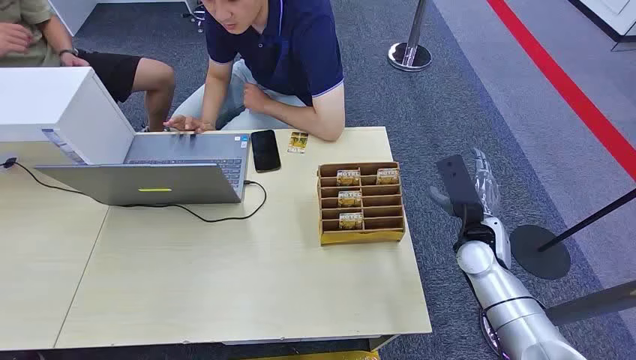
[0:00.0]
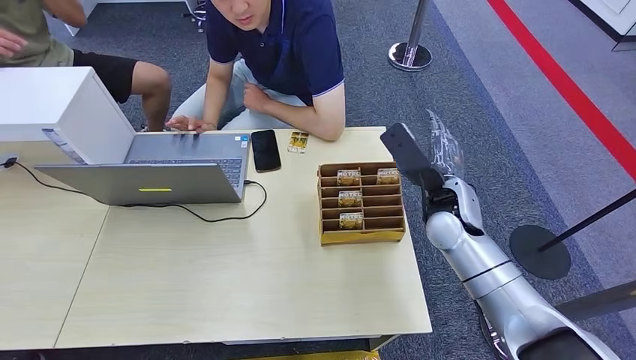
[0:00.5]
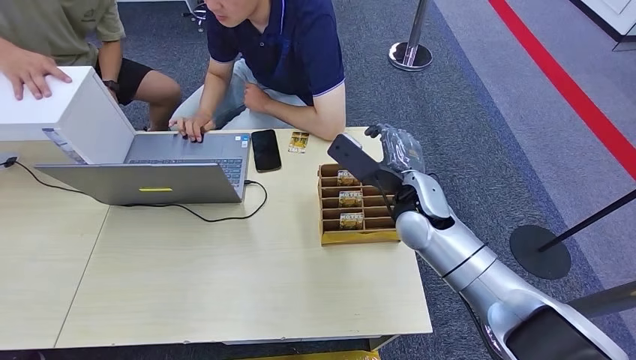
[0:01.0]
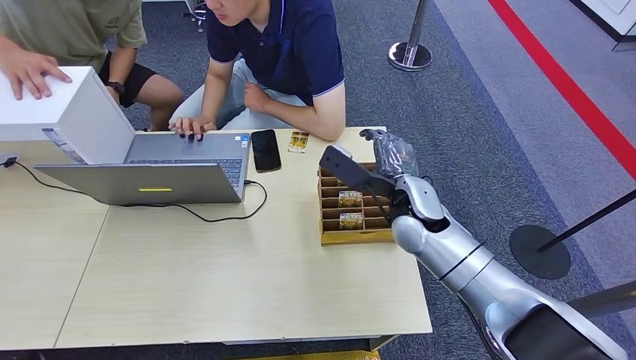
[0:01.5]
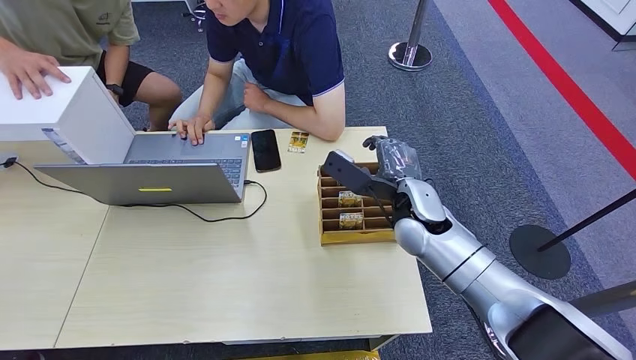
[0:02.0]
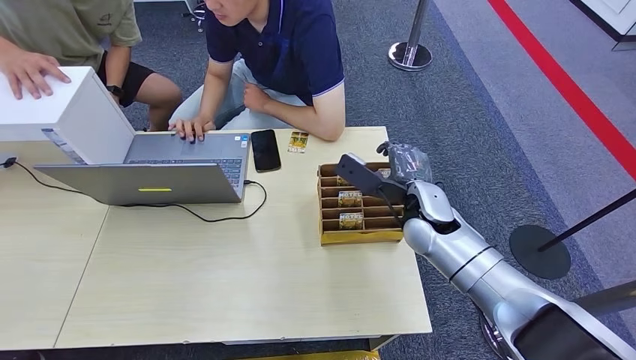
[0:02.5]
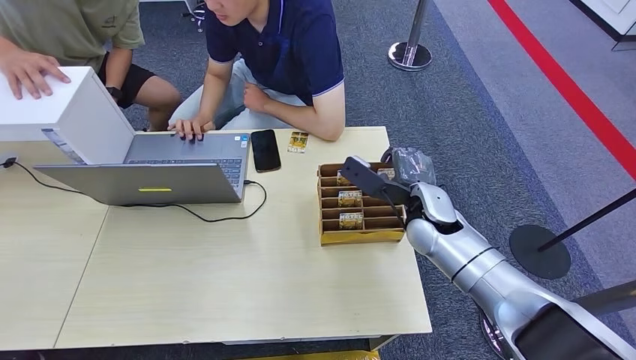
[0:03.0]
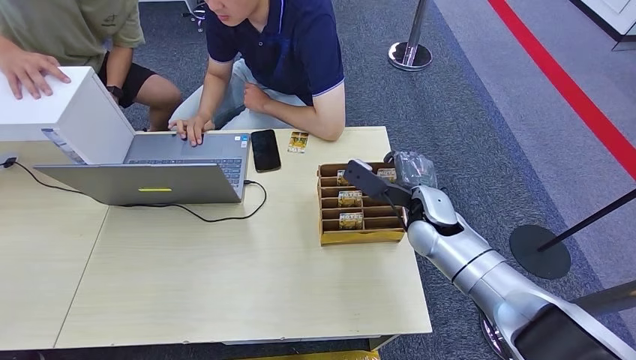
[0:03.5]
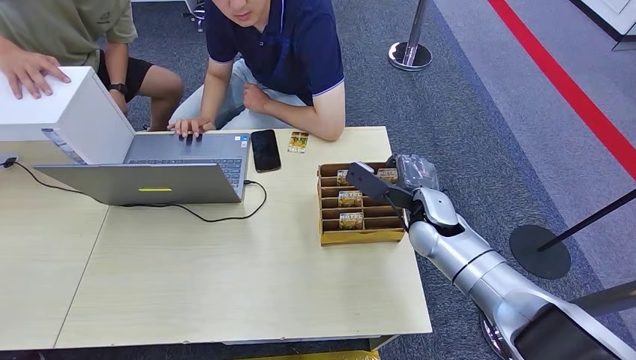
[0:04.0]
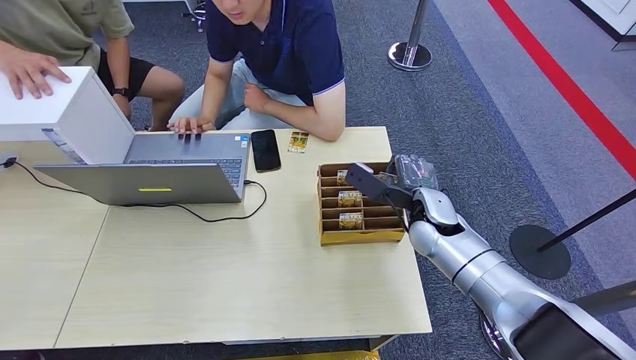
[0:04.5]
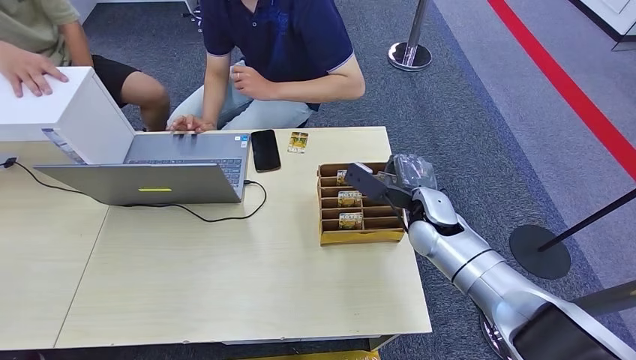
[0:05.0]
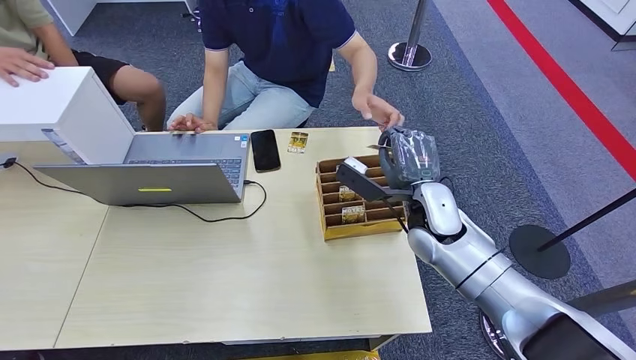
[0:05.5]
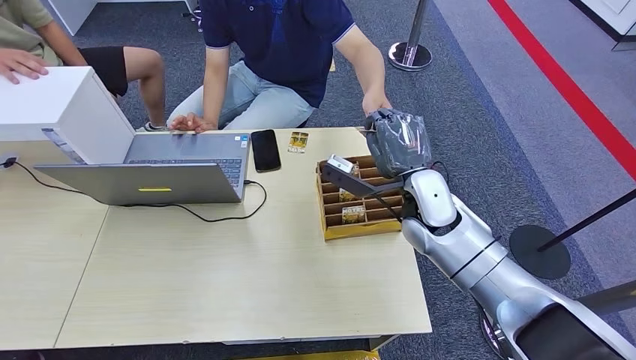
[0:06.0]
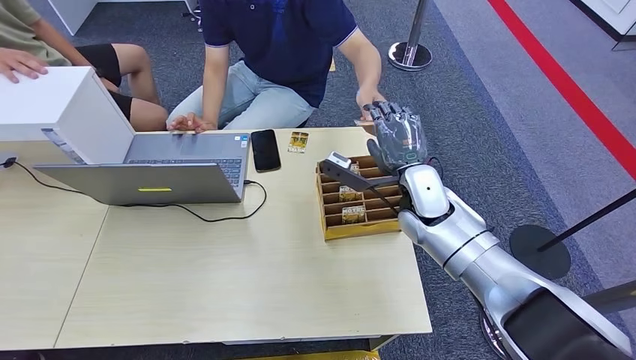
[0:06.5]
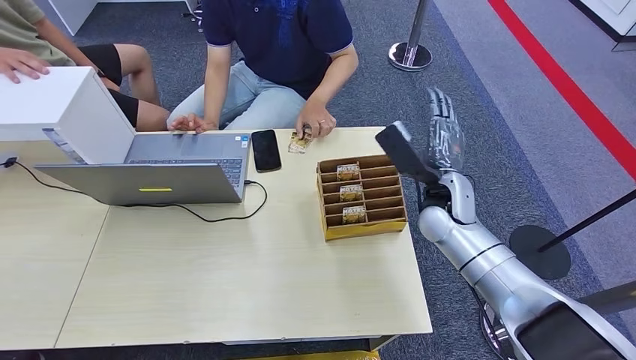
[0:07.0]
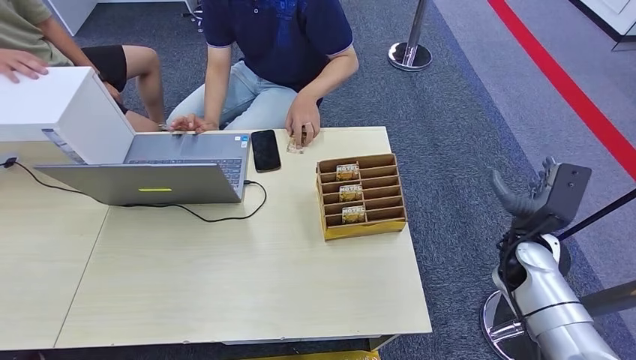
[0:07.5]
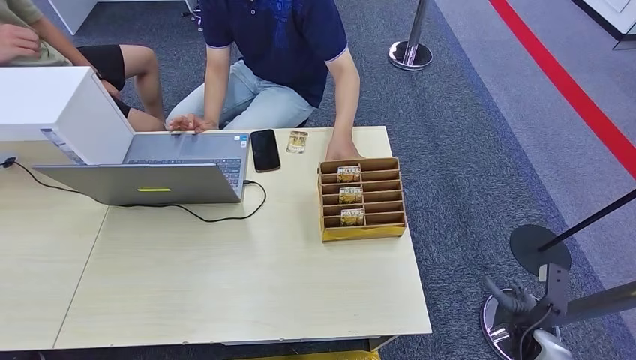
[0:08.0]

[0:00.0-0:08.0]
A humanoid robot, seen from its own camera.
Step, 0:00.0 to 0:05.0: Pick up the key card from the card box.
Step, 0:05.5 to 0:08.0: Hand the key card to the target.
0:02.0 to 0:04.0: The right hand changes place by about 5 cm.
0:04.0 to 0:06.0: The right hand goes approximately 5 cm upward.
0:06.0 to 0:08.0: The right hand heads to the right, downward and backward, covering about 40 cm.

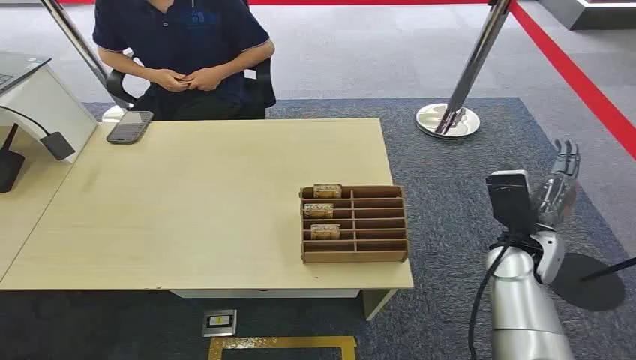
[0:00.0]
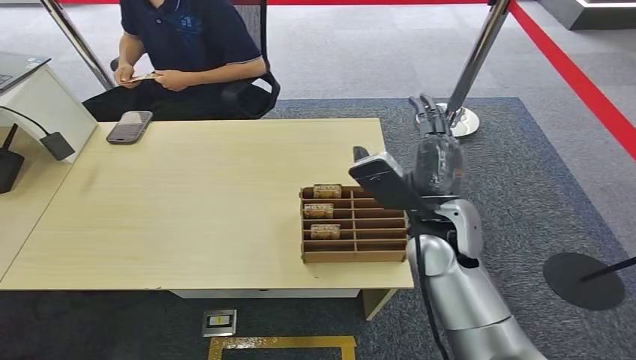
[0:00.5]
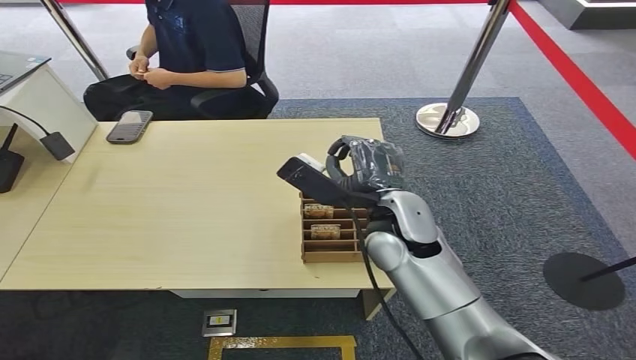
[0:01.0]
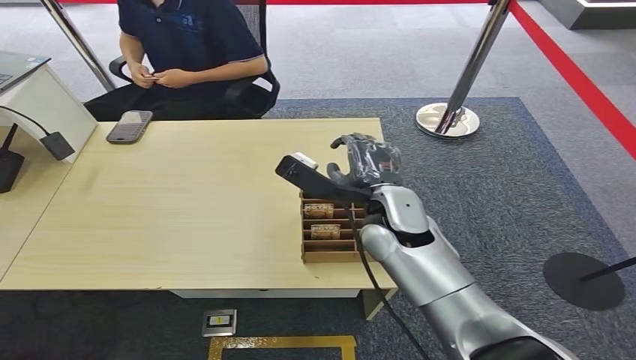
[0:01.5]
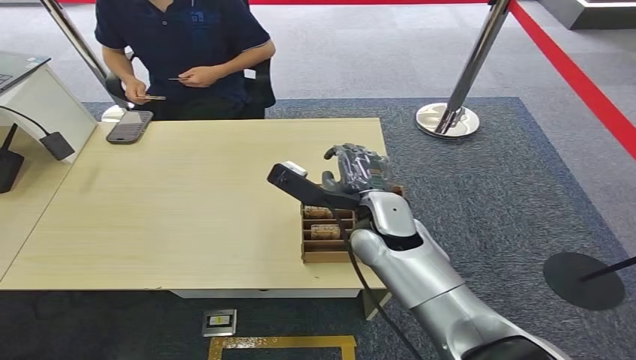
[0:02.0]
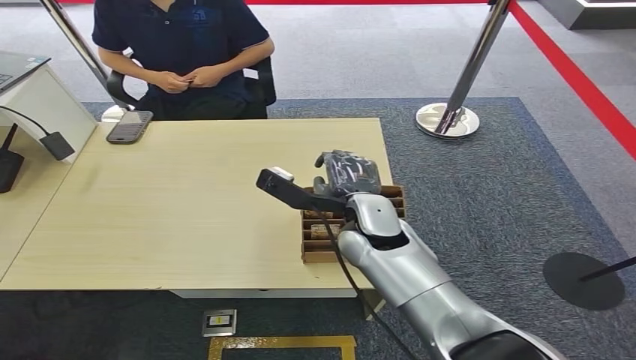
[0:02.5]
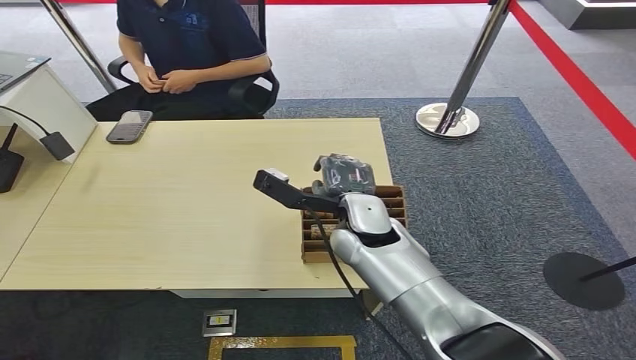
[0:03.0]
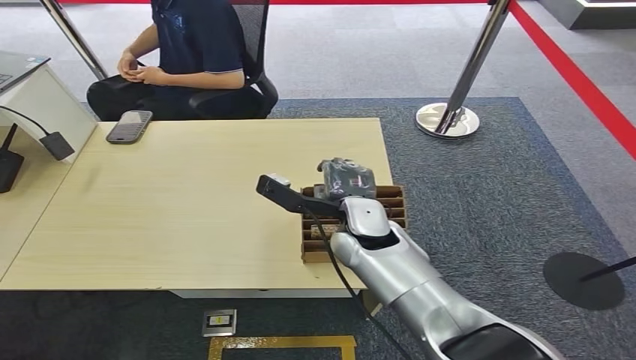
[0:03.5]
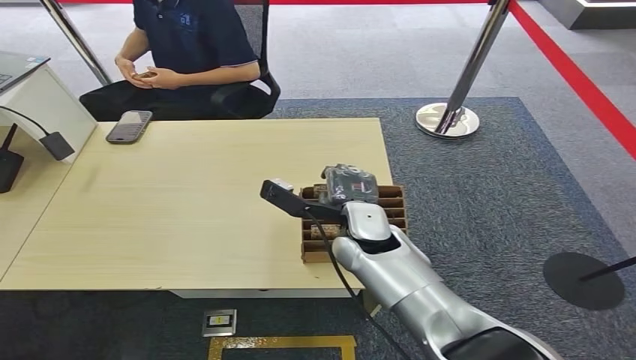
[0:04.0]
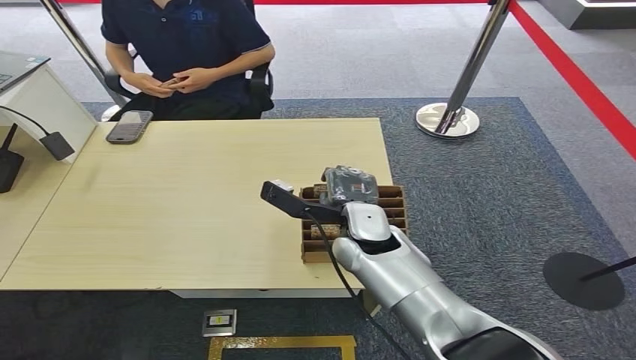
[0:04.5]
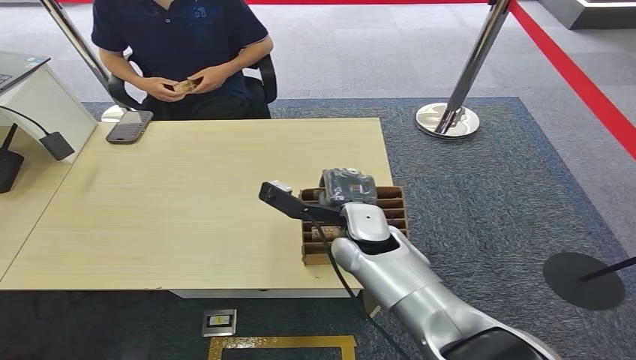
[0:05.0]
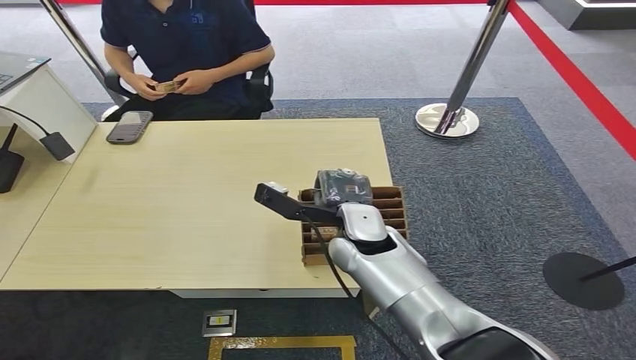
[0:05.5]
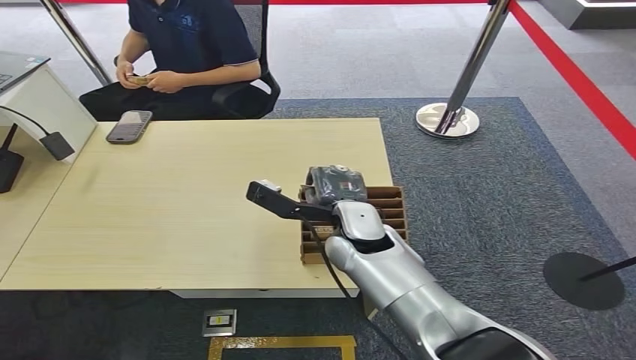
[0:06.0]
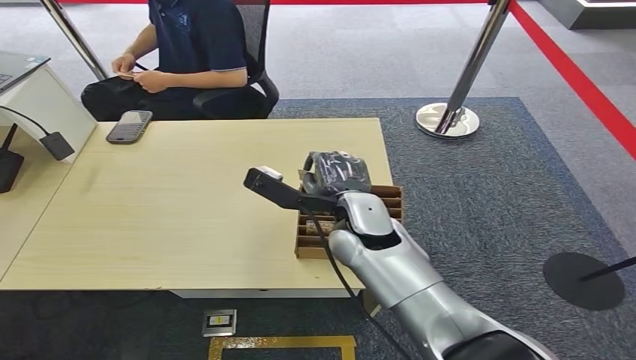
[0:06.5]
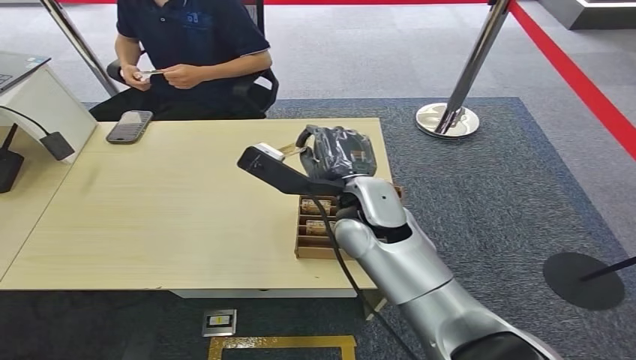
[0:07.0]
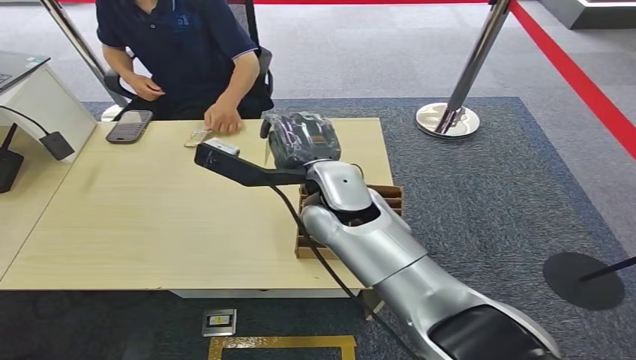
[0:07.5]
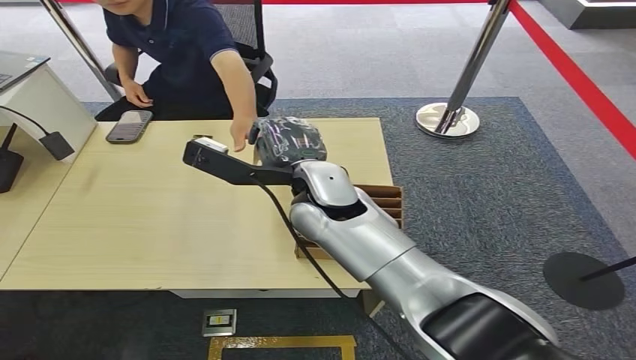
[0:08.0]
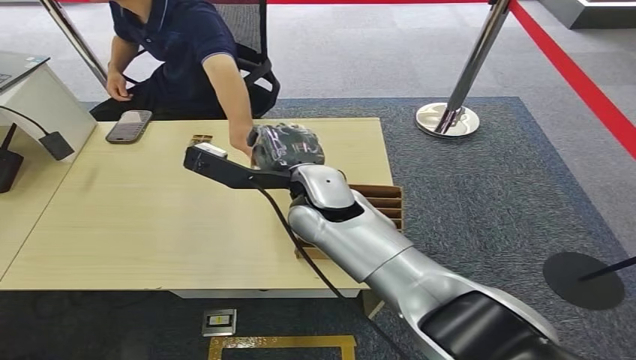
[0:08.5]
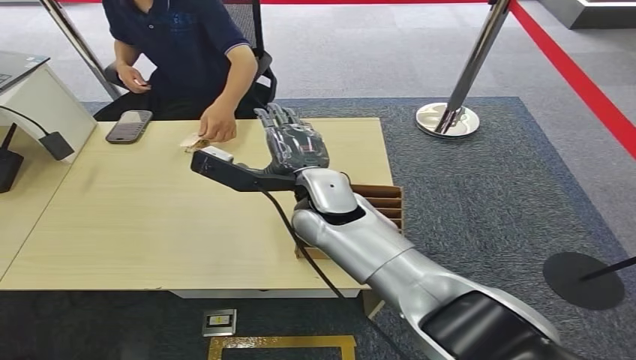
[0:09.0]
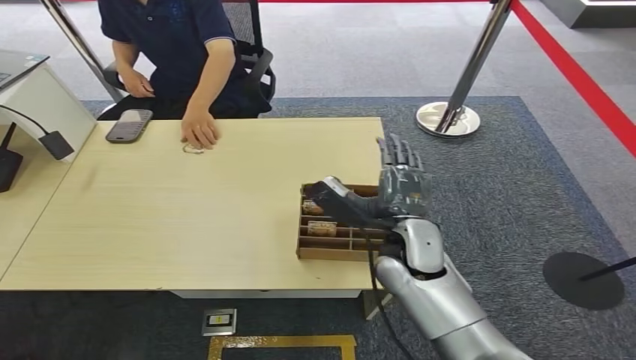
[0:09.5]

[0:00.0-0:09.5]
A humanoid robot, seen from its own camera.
Step, 0:00.0 to 0:06.0: Pick up the key card from the card box.
Step, 0:06.5 to 0:09.5: Hand the key card to the target.
0:02.0 to 0:04.0: There are only small adjustments of the hands.
0:04.0 to 0:05.5: The two hands keep their place.
0:05.5 to 0:07.5: The right hand heads upward, covering approximately 10 cm.
0:07.5 to 0:09.5: The right hand travels downward, to the right and backward by approximately 15 cm.

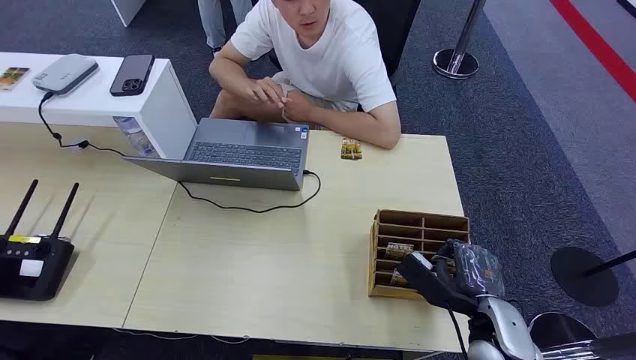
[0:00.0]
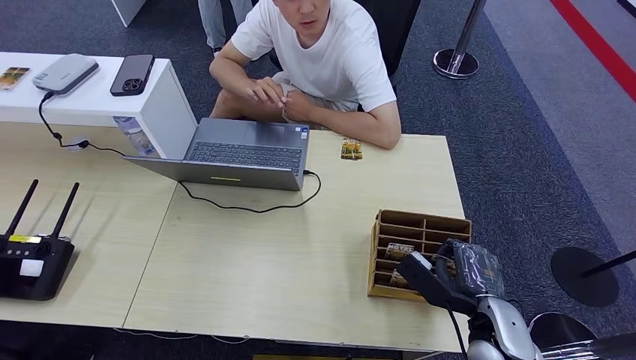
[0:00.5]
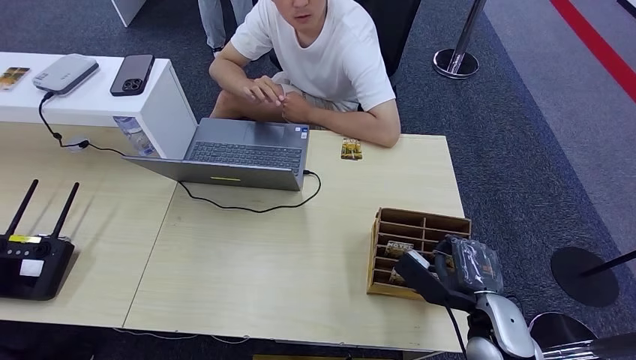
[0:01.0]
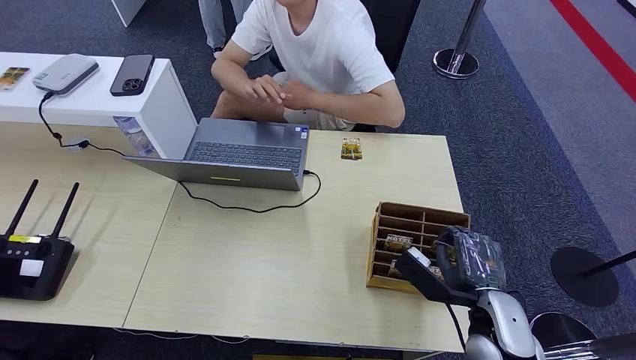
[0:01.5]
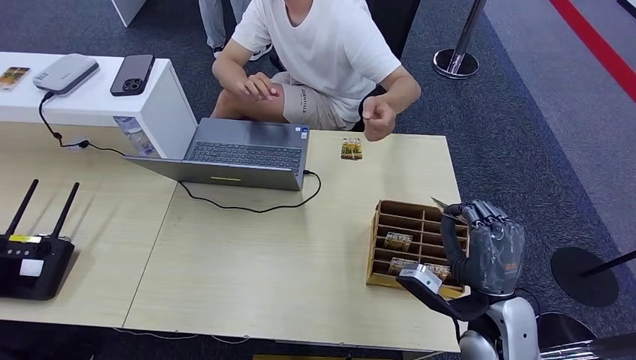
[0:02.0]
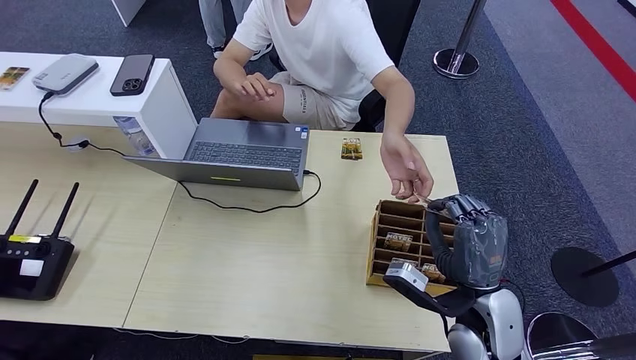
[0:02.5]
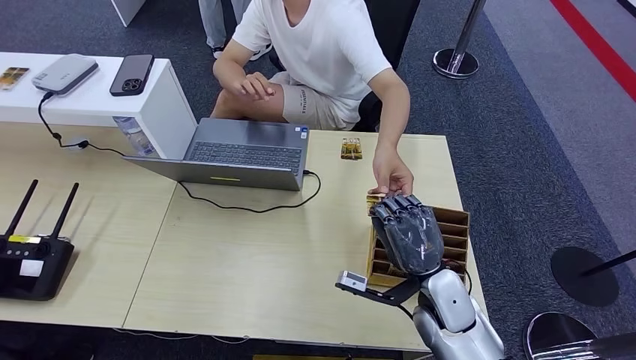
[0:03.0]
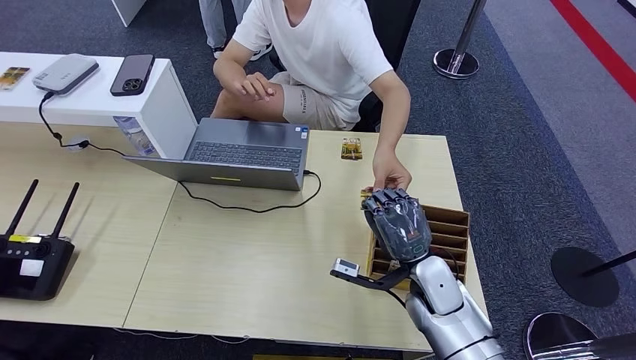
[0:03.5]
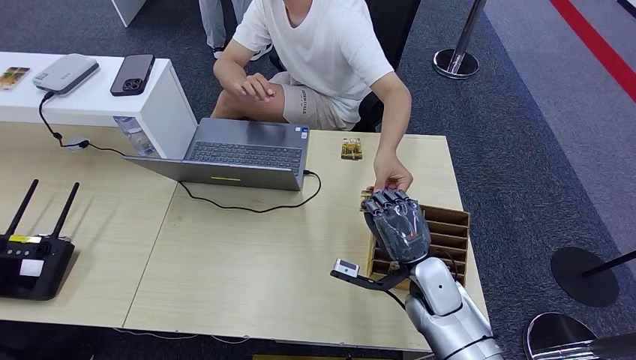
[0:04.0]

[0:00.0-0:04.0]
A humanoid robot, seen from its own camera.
Step, 0:00.0 to 0:01.5: Pick up the key card from the card box.
Step, 0:02.0 to 0:04.0: Hand the key card to the target.
0:02.0 to 0:04.0: The right hand moves forward, to the left and downward, roughly 10 cm.
